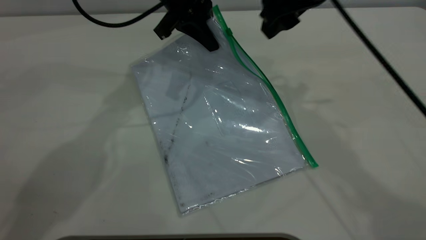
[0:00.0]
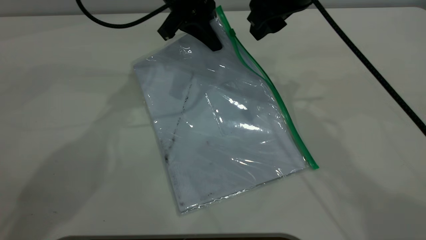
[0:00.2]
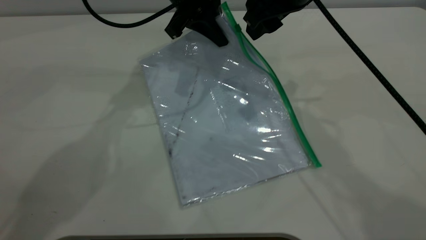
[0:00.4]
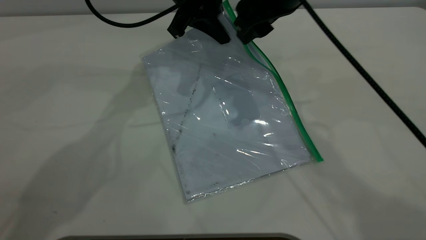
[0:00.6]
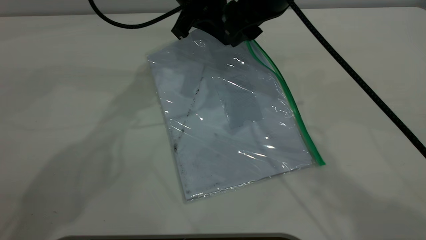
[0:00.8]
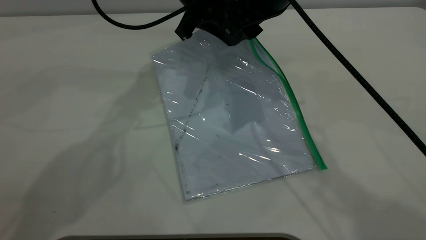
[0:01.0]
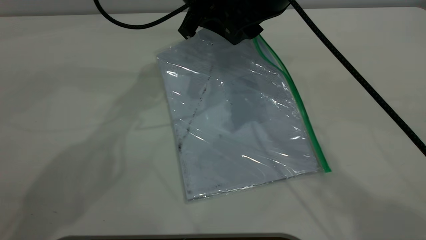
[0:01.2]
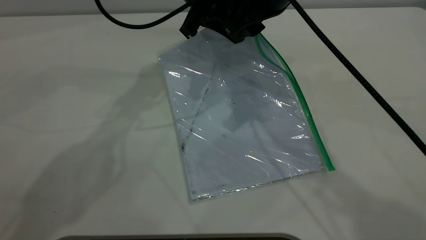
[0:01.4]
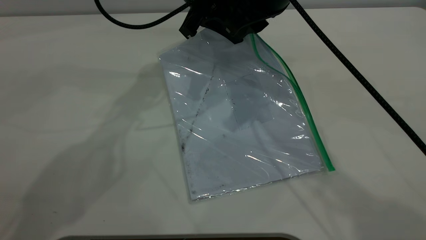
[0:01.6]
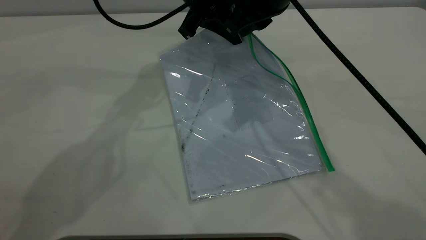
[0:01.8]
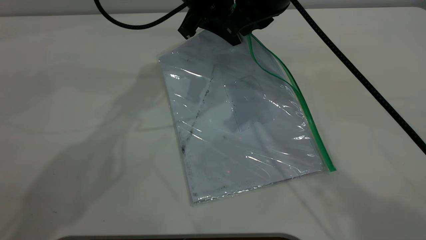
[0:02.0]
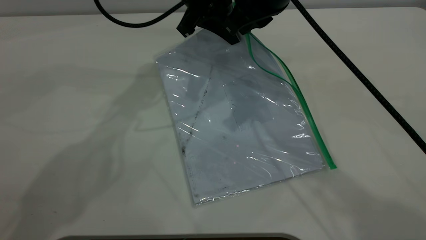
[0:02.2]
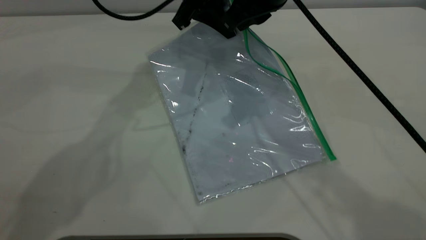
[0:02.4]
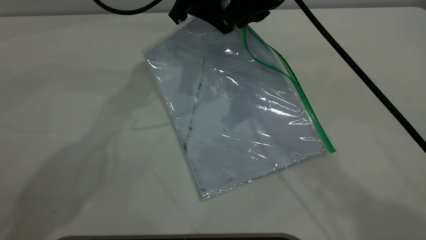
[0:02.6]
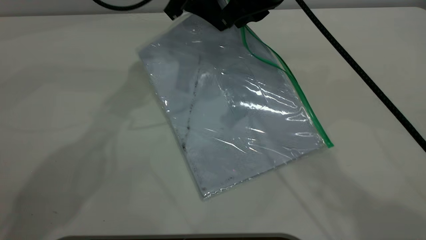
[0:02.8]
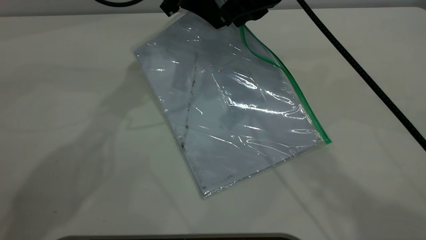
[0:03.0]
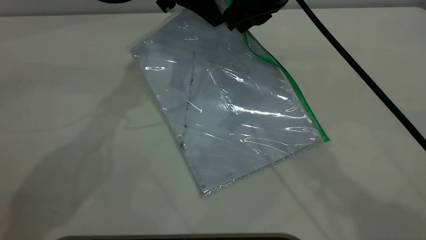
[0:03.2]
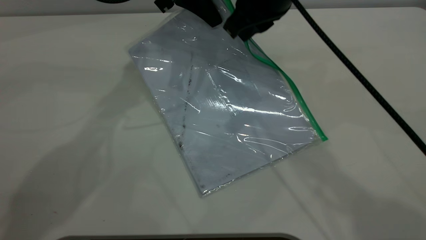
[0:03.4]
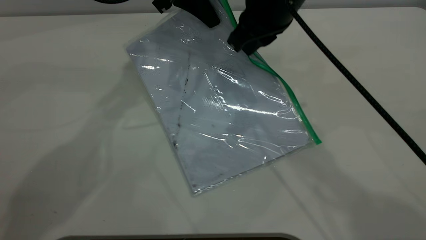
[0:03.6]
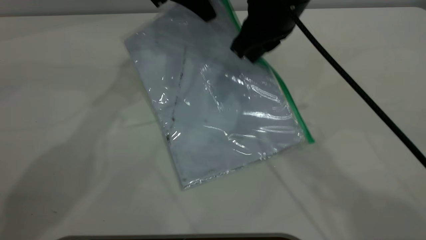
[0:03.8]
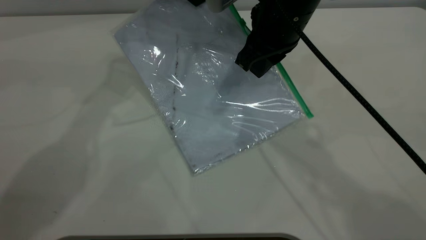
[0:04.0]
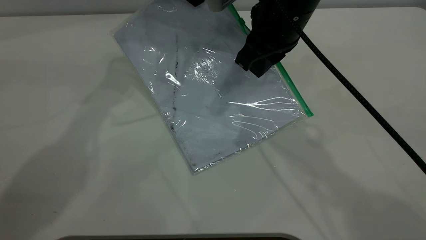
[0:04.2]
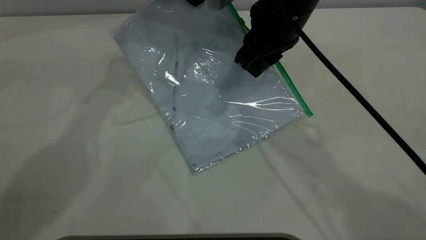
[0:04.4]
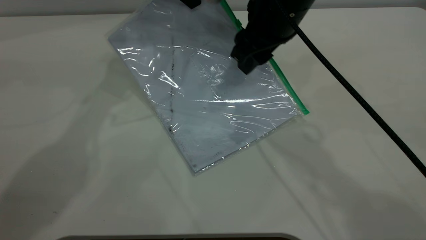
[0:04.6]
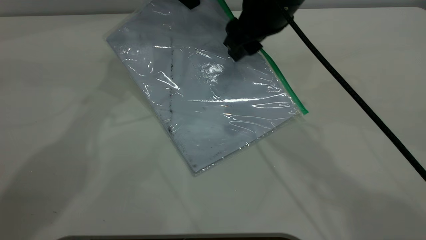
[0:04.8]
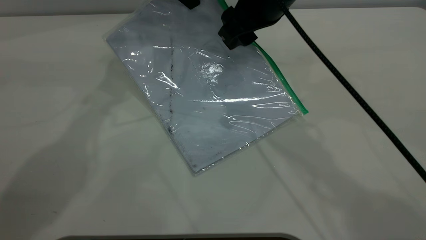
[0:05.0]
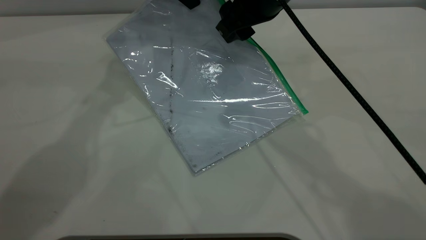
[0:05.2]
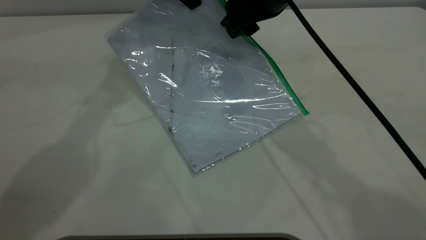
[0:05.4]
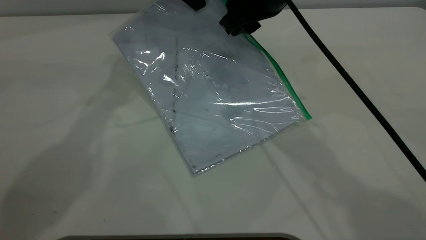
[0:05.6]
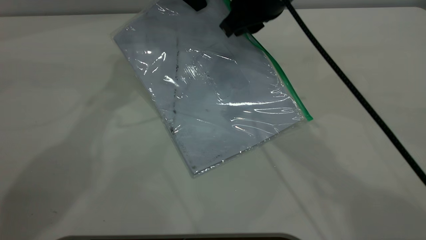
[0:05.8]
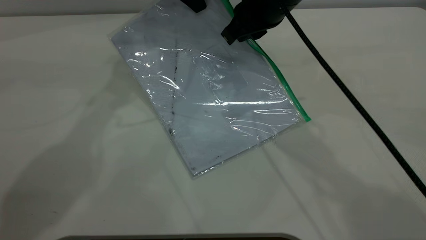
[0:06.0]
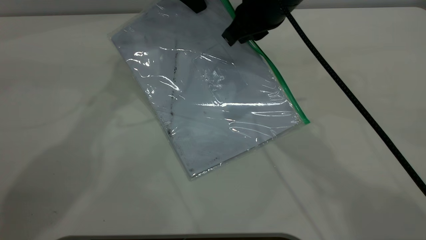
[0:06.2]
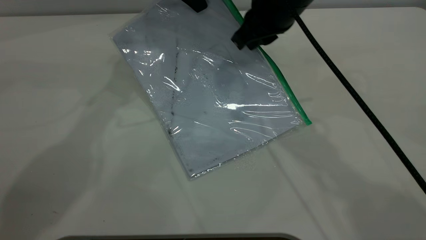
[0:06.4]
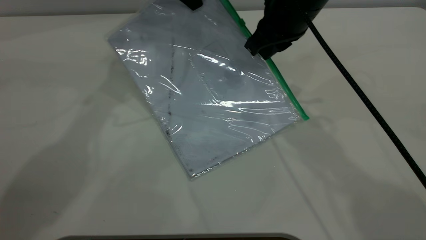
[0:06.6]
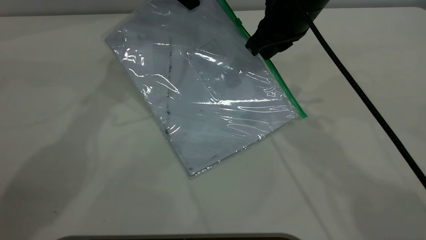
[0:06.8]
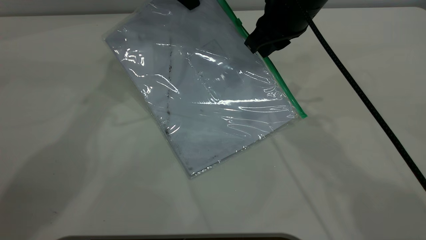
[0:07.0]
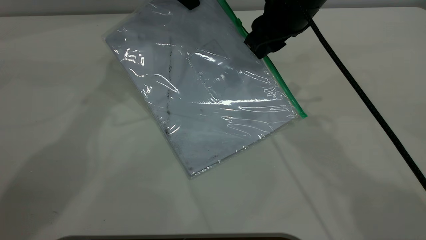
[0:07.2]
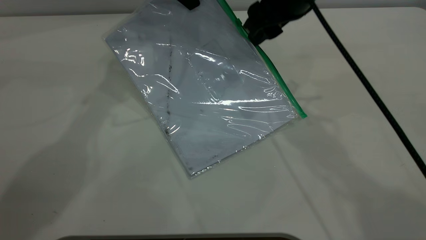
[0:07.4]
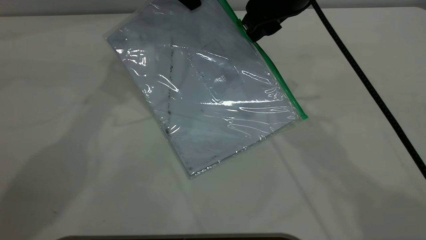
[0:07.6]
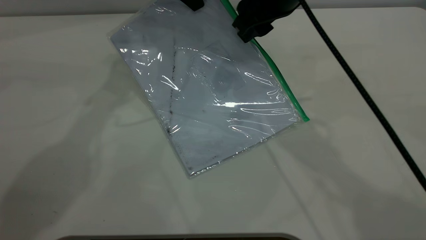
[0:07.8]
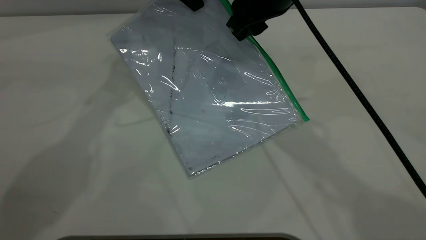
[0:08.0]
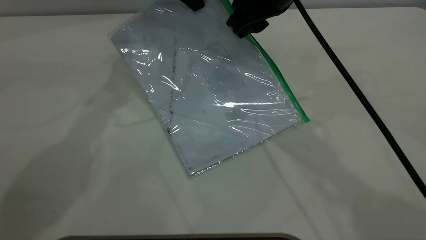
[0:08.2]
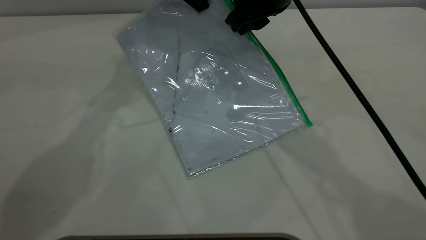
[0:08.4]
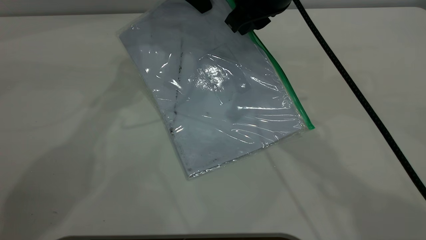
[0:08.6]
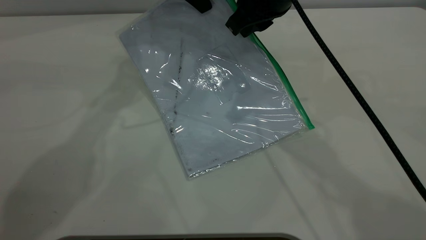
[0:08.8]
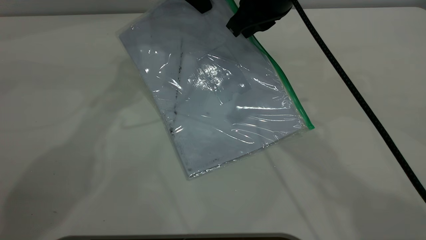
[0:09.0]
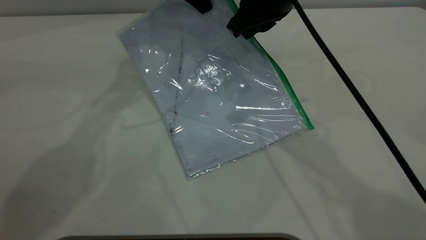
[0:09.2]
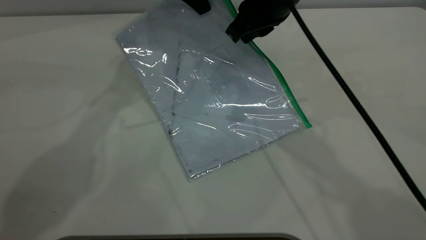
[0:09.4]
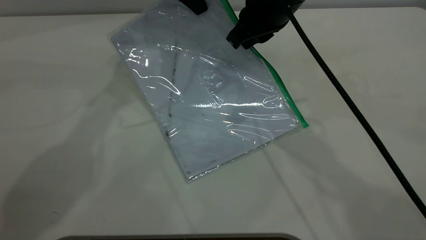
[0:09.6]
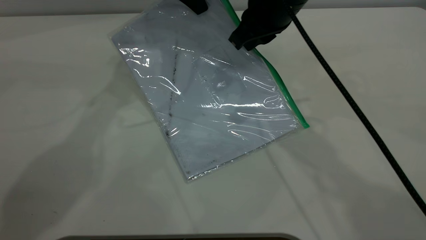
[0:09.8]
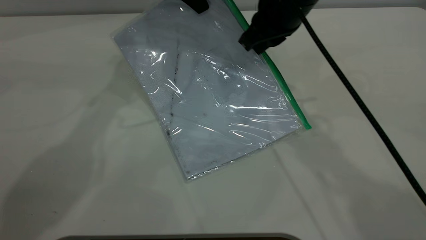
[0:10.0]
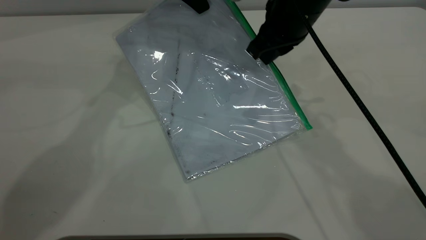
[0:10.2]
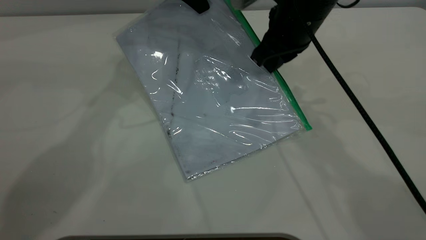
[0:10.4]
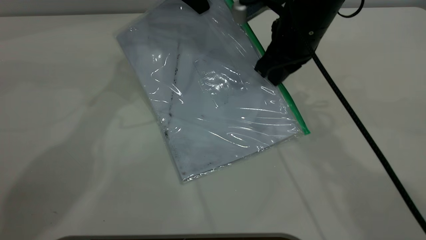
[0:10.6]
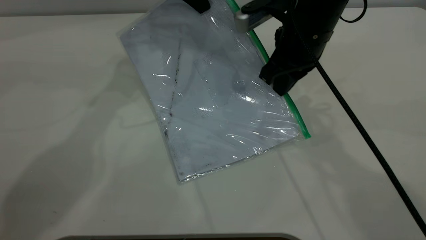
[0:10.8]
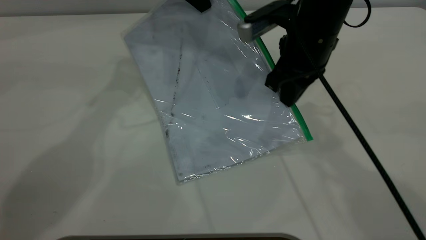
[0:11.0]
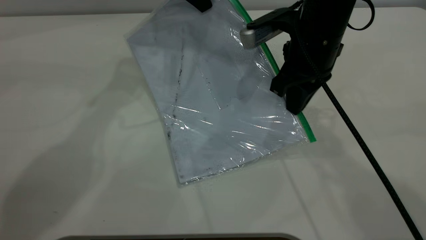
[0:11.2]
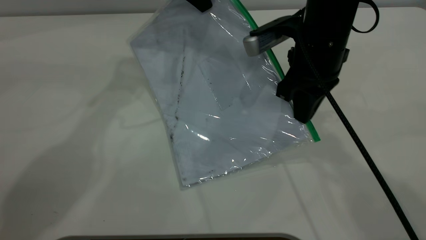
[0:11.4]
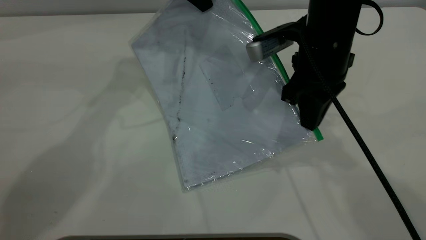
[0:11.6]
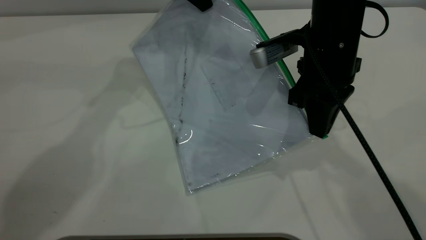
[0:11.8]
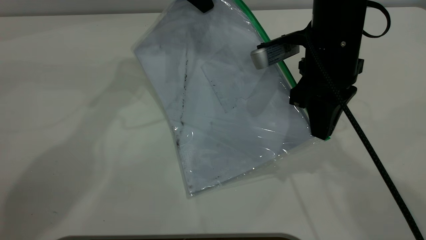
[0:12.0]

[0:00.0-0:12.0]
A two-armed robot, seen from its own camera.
0:00.0 to 0:01.6: The right gripper closes up.
0:01.6 to 0:03.0: The grippers stay close to where they were, moving slightly.
0:03.0 to 0:04.4: The right gripper opens its fingers.
0:04.4 to 0:06.0: The right gripper closes.
0:06.0 to 0:07.6: The right gripper opens its fingers.
0:07.6 to 0:09.0: The right gripper closes its fingers.
0:09.0 to 0:10.4: The right gripper goes approximately 5 cm downward.
0:10.4 to 0:12.0: The right gripper is displaced backward by roughly 5 cm.

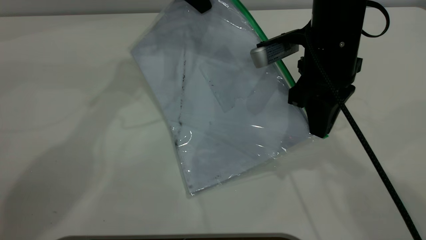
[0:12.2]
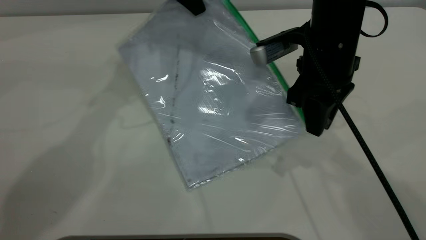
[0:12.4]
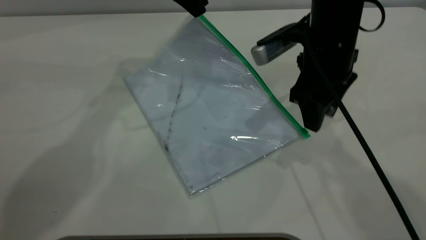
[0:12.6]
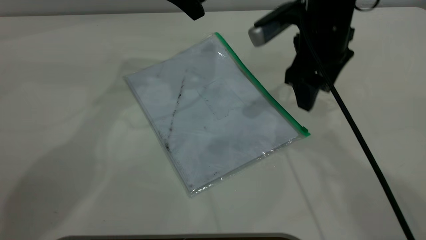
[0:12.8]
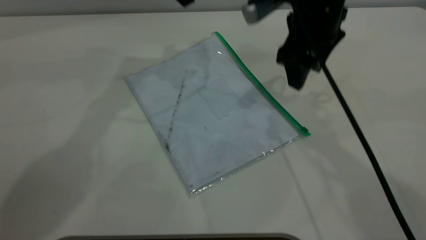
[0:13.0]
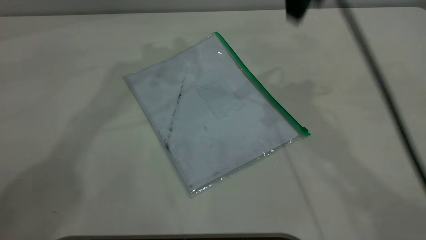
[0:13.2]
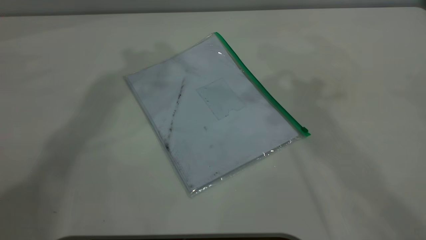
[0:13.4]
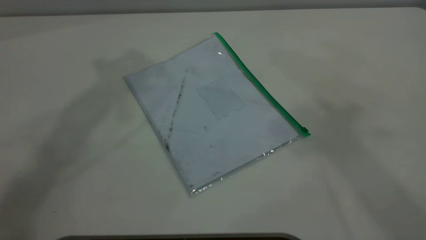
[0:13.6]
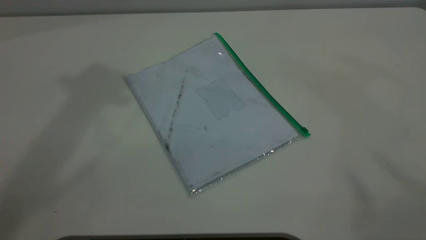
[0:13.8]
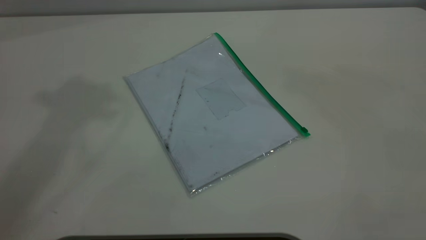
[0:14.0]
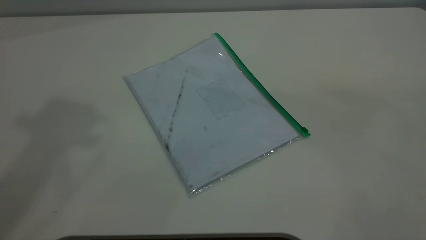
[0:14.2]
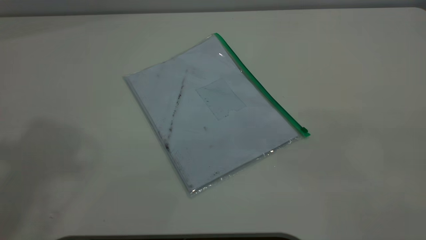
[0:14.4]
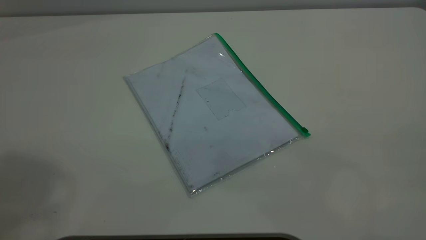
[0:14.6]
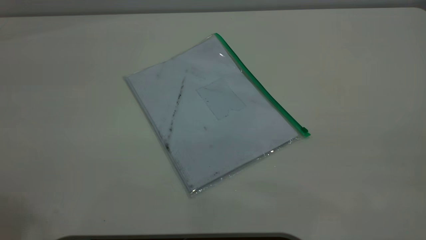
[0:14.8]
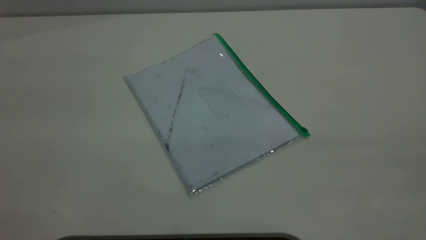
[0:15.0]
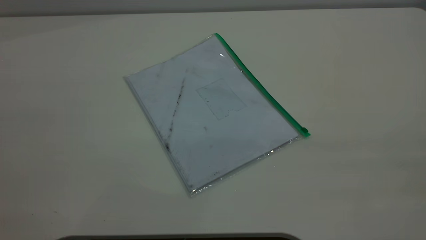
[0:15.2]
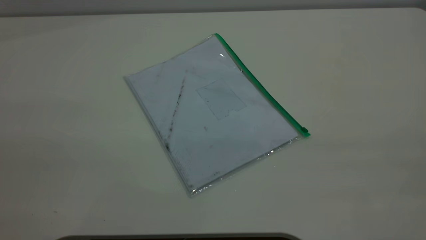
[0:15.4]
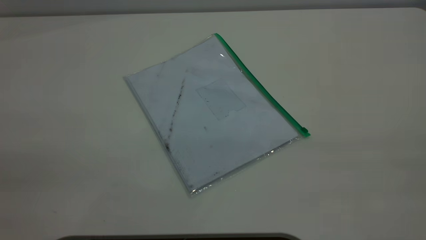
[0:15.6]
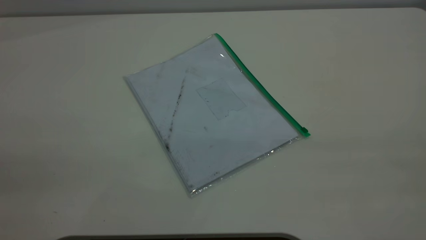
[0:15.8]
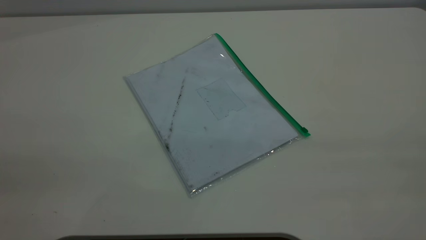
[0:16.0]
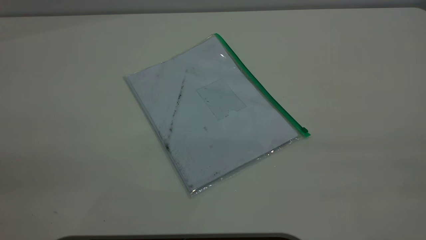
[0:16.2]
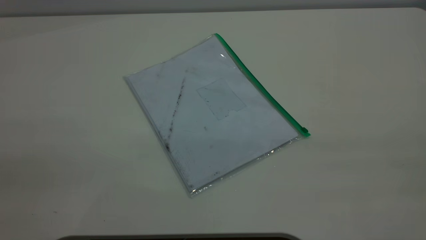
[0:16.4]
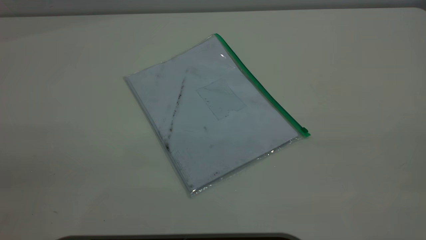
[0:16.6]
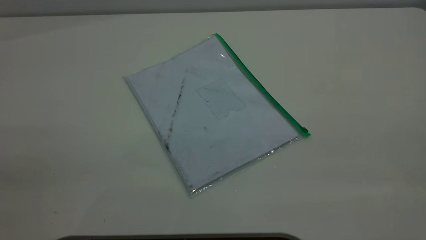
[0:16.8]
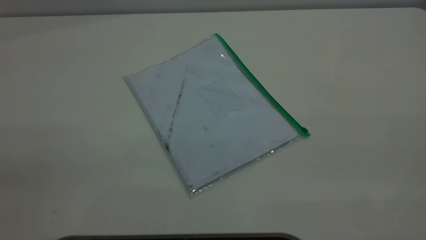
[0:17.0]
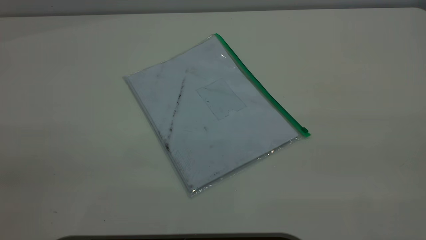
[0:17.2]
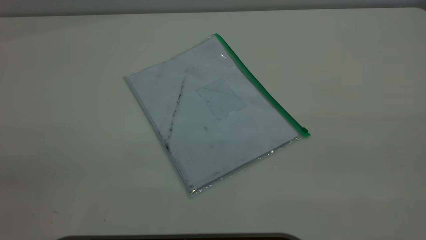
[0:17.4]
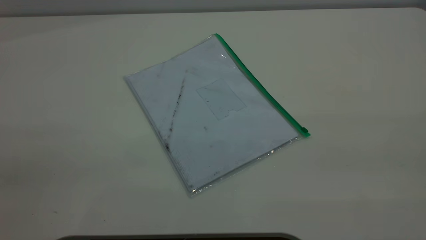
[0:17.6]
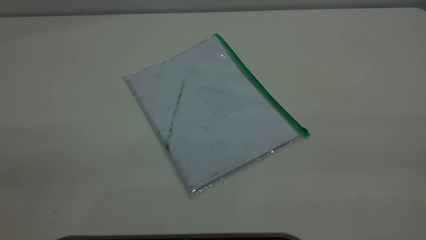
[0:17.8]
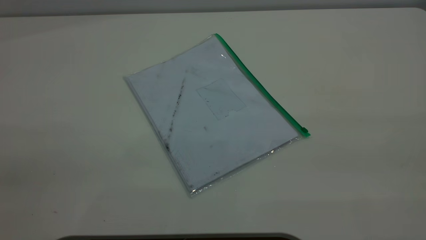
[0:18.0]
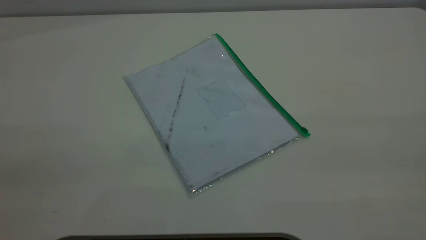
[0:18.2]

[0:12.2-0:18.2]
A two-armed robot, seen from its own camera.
0:12.2 to 0:13.8: The right gripper moves upward and backward, some 50 cm, and opens its fingers. Meanwhile the left gripper moves upward, roughly 35 cm, and opens.
